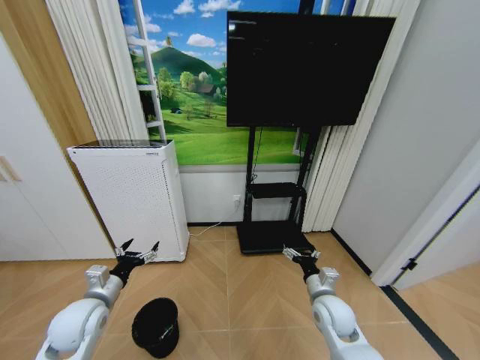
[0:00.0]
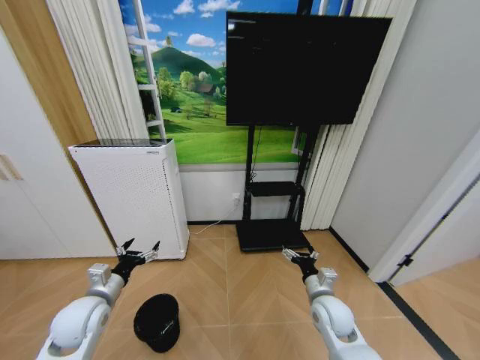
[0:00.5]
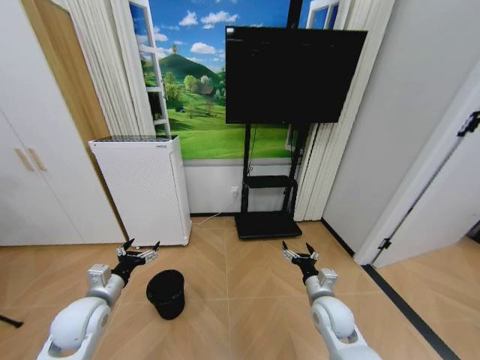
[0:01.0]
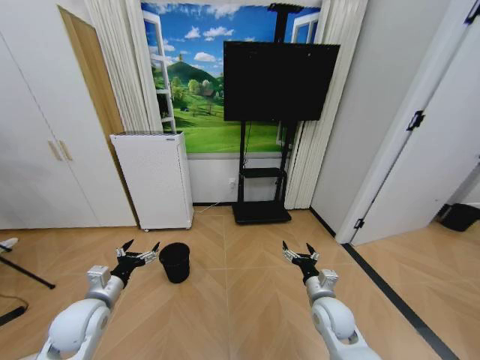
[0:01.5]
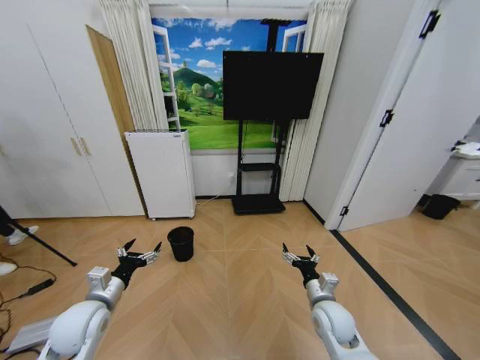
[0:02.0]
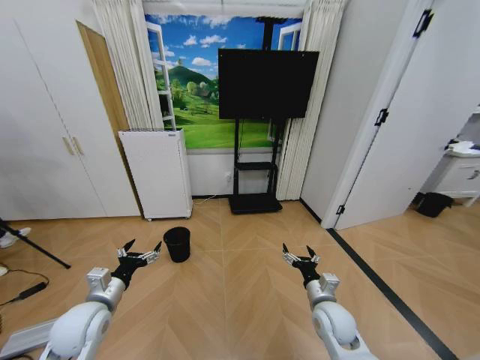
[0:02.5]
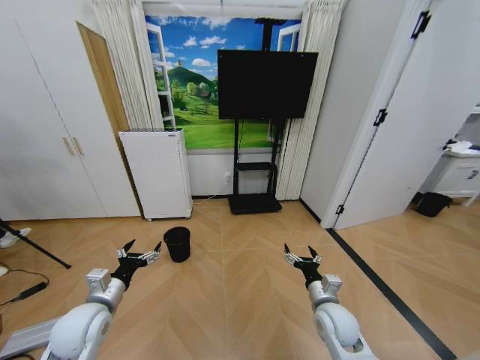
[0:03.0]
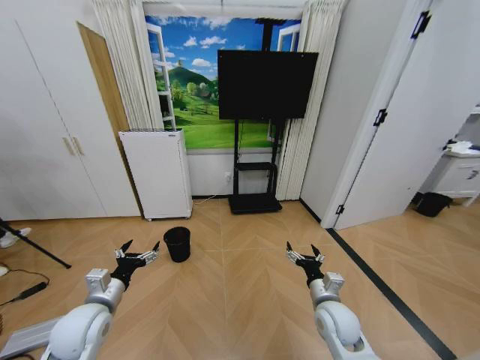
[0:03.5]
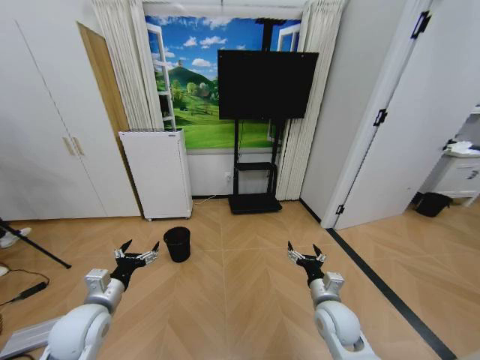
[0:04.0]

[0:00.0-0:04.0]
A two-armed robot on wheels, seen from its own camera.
Task of the whole recording: Pick up the trash bin and place the garbage on the floor into it.
0:02.0 to 0:04.0: The grippers move only a little.
